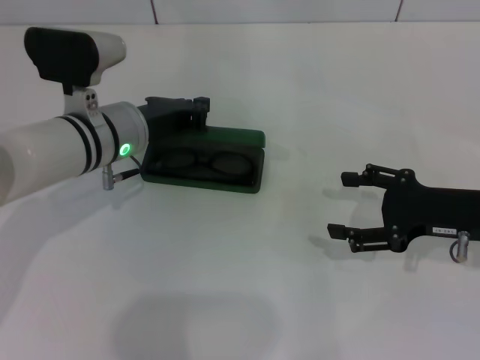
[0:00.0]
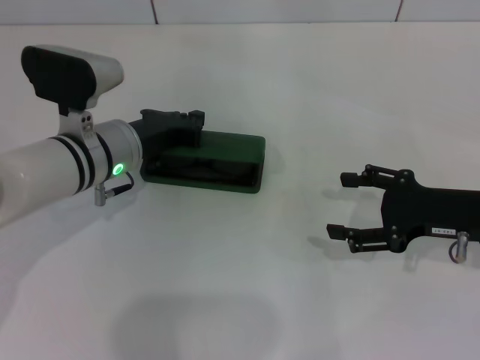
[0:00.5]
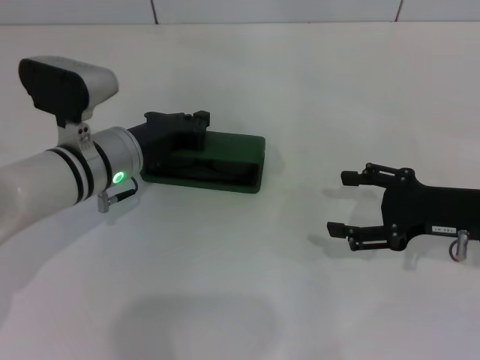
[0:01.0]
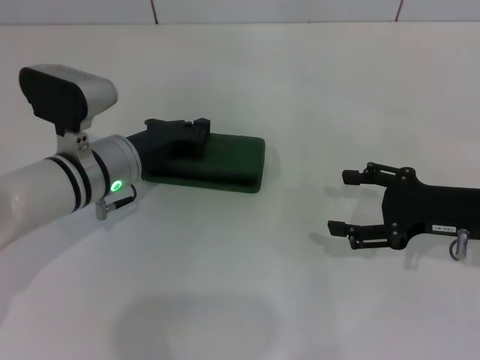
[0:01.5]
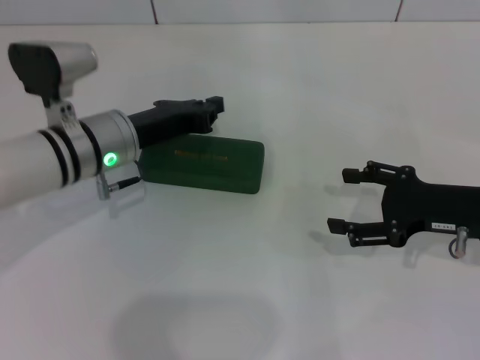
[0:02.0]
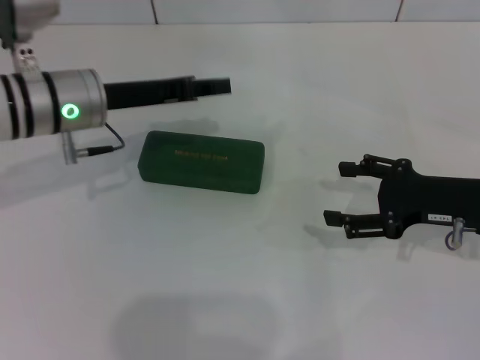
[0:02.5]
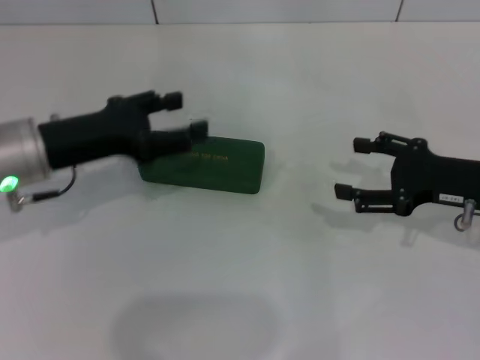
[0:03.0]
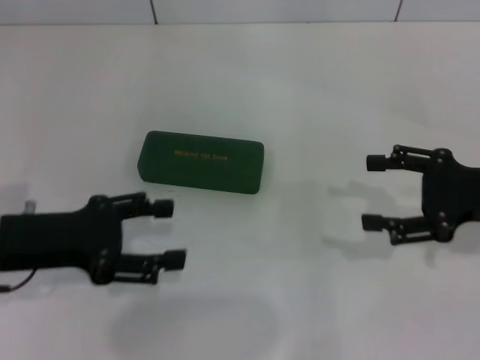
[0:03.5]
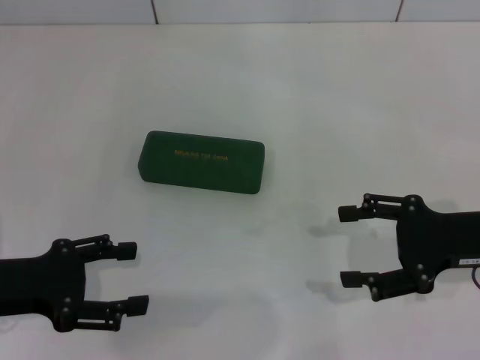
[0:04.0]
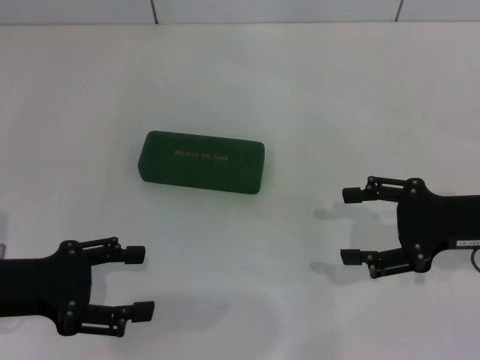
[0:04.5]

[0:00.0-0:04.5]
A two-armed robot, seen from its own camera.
0:00.0 to 0:02.0: There are only small adjustments of the grippers.
0:02.0 to 0:04.5: The left gripper shifts roughly 20 cm backward and to the left, and opens up.

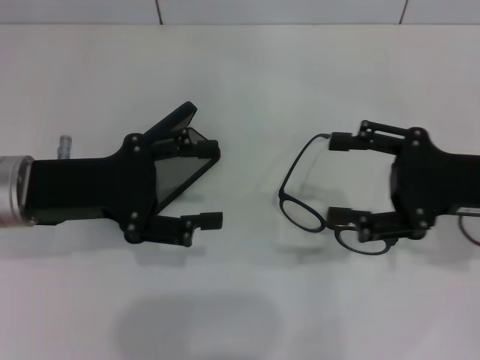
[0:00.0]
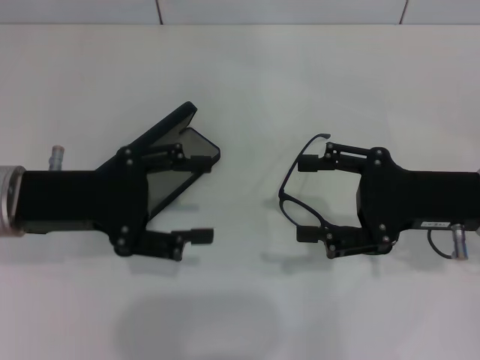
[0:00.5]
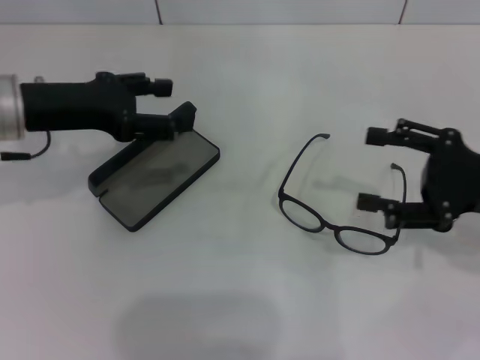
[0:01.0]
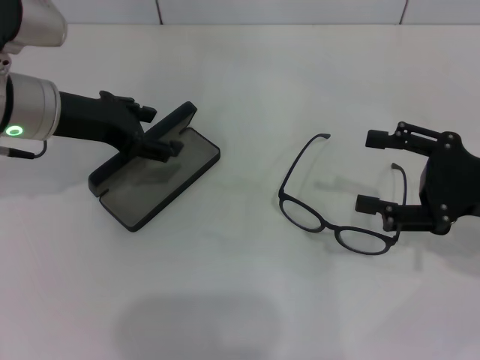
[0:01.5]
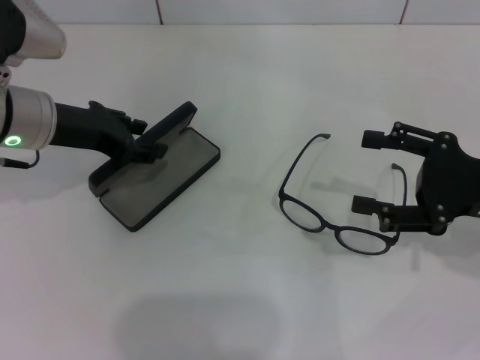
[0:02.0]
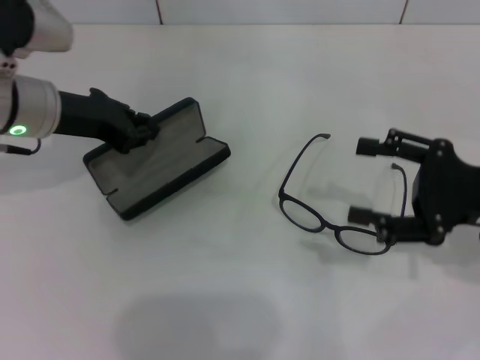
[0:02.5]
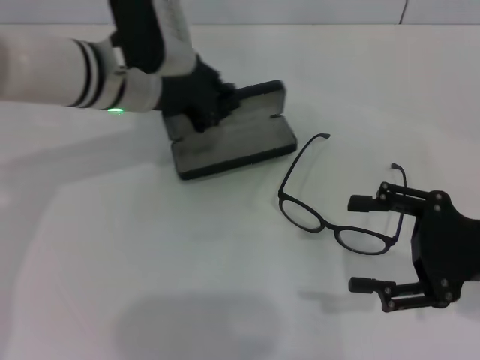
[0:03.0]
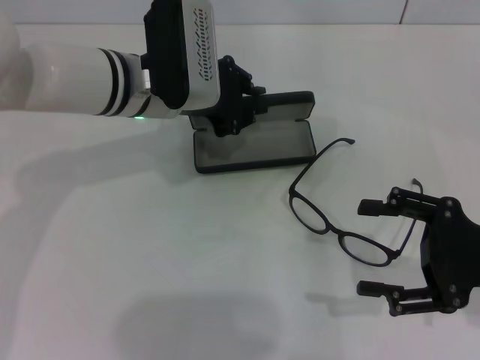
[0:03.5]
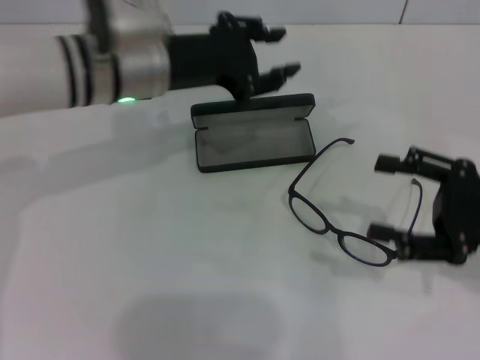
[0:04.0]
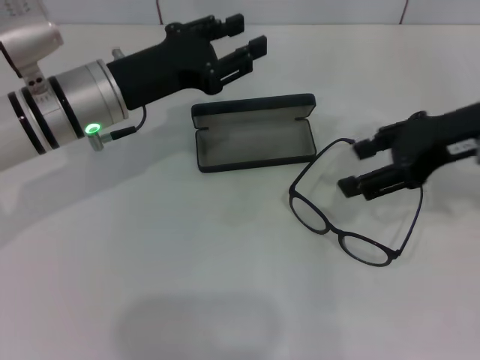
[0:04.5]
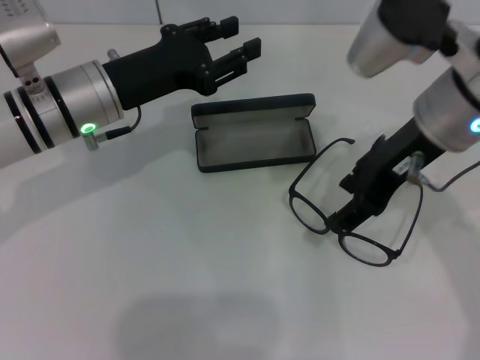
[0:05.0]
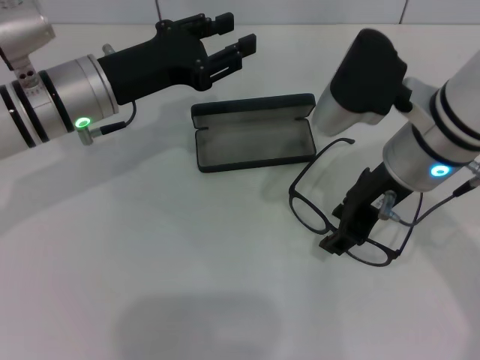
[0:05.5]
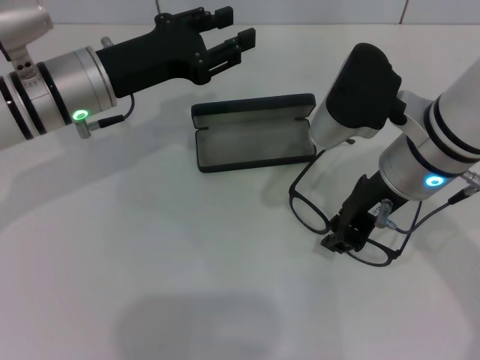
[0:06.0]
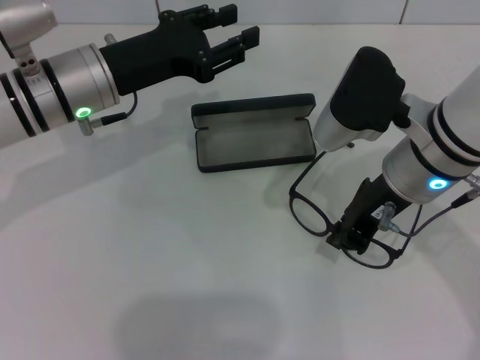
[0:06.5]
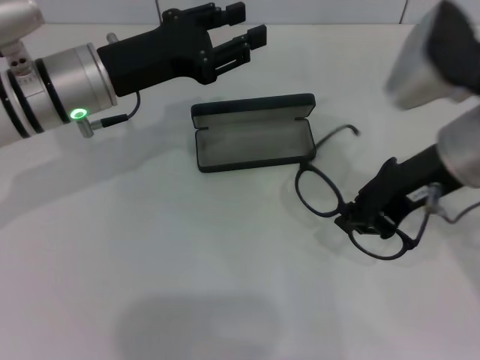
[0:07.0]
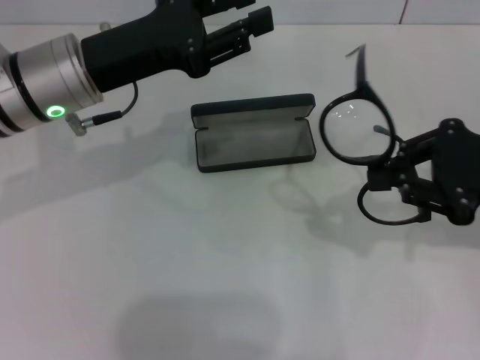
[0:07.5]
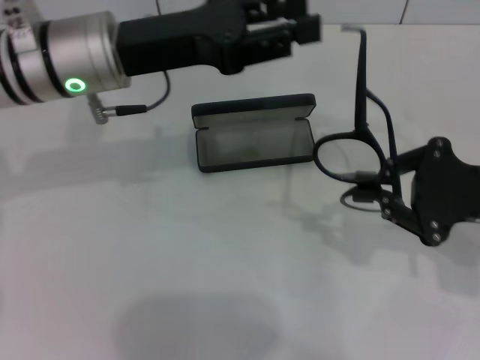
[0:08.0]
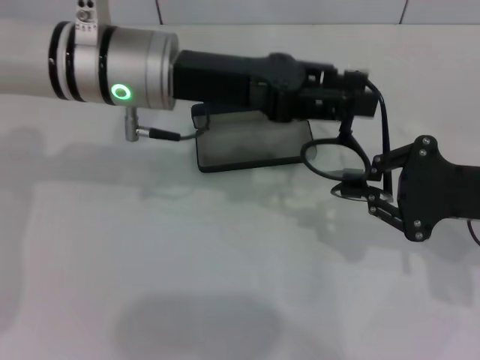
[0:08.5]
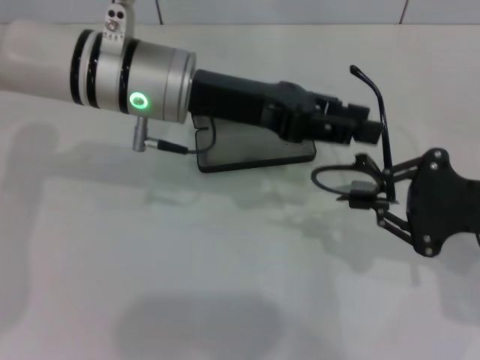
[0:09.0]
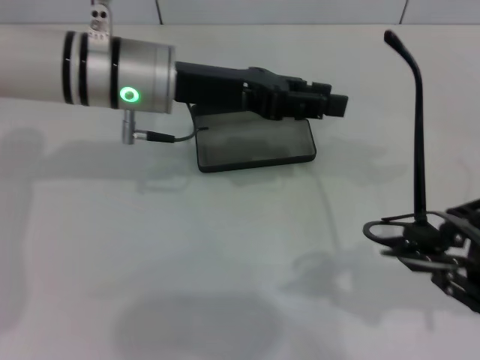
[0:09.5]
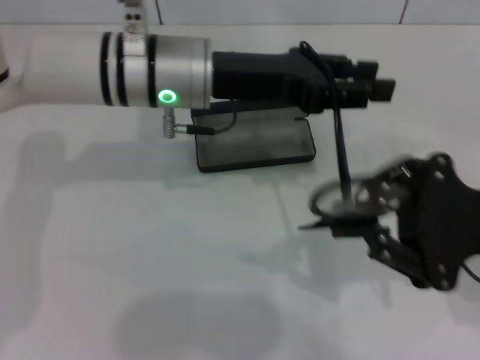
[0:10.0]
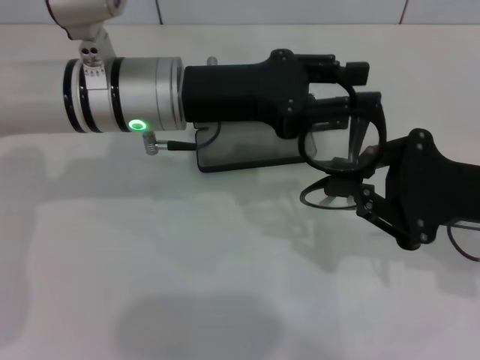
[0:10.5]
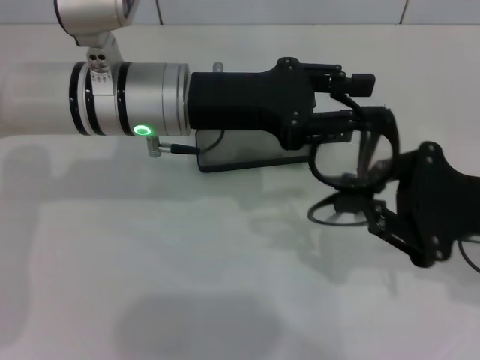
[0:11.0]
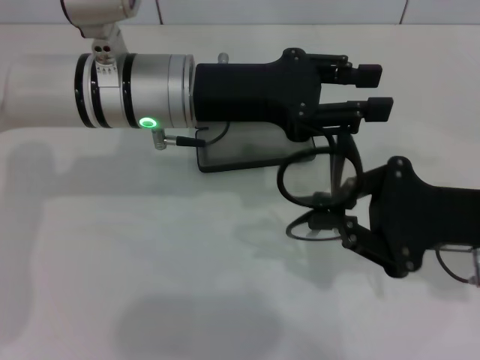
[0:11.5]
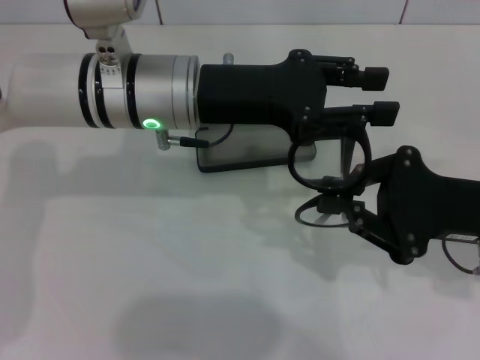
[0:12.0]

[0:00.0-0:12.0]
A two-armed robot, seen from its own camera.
Step, 0:00.0 to 0:02.0: Grab the glasses case with your left hand.
Step, 0:02.5 to 0:03.5: Place the glasses case in the center of the table with your left hand.
Step, 0:04.0 to 0:06.5: Grab the eyeglass frame with your right hand.
Step, 0:07.0 to 0:11.0: Fold the frame with your left hand.
0:00.0 to 0:02.0: The left gripper shifts approximately 10 cm forward.
0:02.0 to 0:04.0: The left gripper heads to the right, covering some 10 cm, and closes.
0:04.0 to 0:06.0: The right gripper moves to the left and forward, approximately 20 cm, and closes up. Meanwhile the left gripper goes about 5 cm to the left.
0:06.0 to 0:08.0: The right gripper is displaced to the right by approximately 15 cm, while the left gripper moves upward, roughly 5 cm.
0:08.0 to 0:10.0: The left gripper moves to the right, about 5 cm.

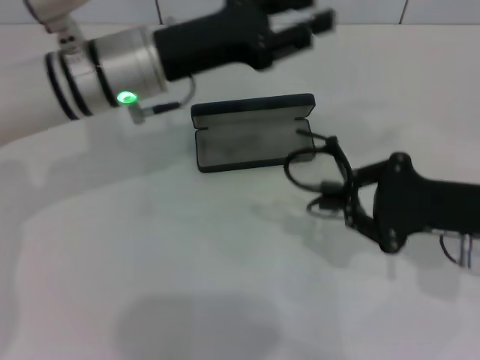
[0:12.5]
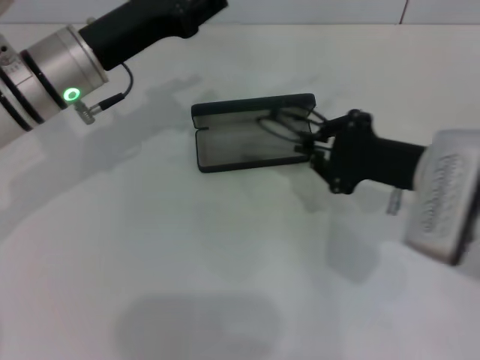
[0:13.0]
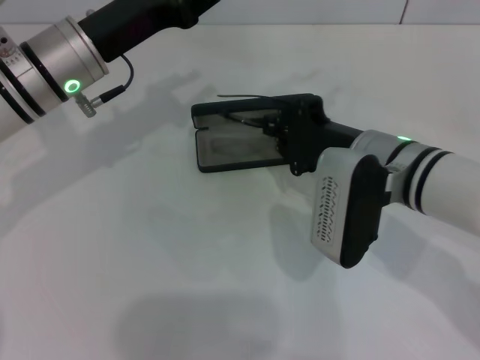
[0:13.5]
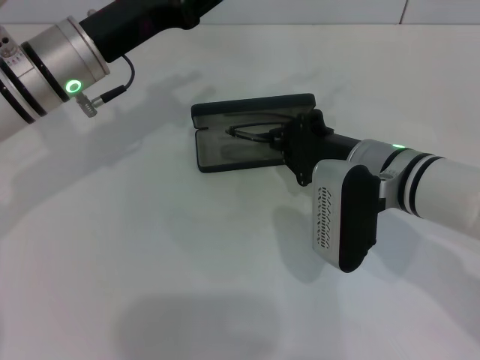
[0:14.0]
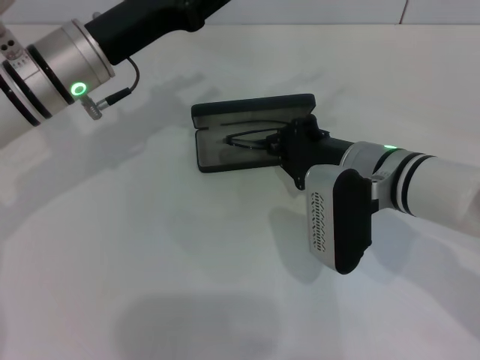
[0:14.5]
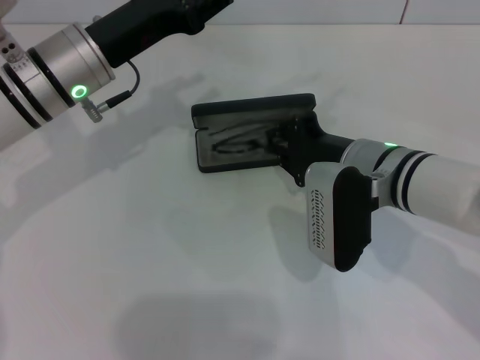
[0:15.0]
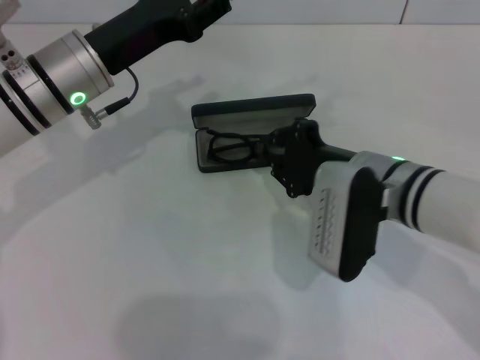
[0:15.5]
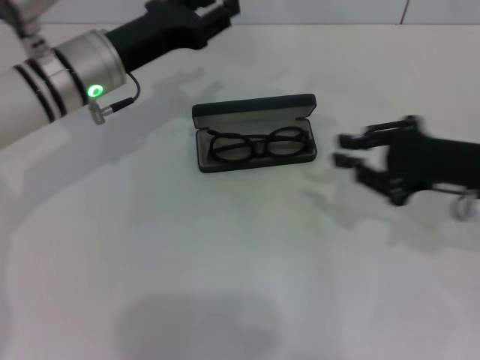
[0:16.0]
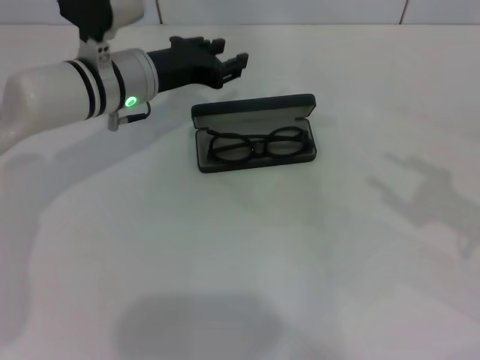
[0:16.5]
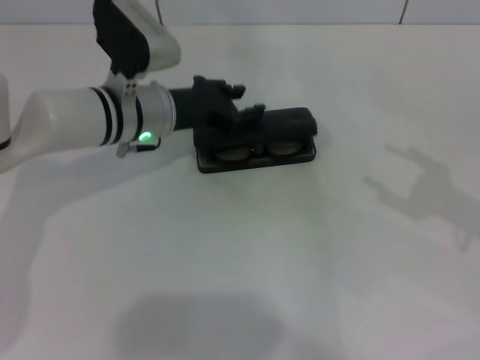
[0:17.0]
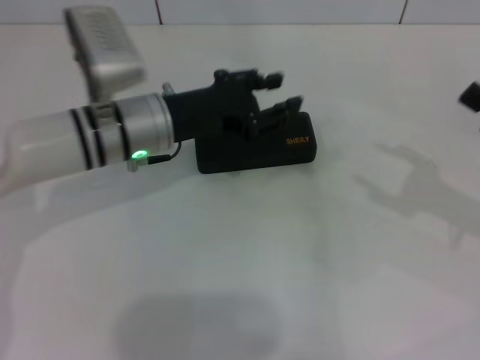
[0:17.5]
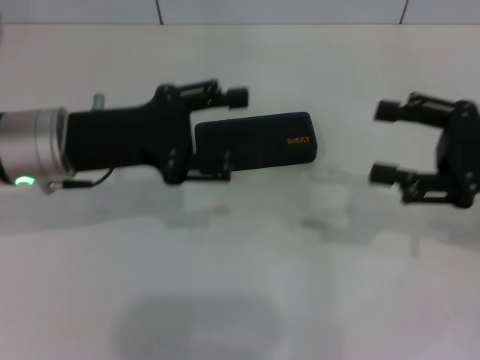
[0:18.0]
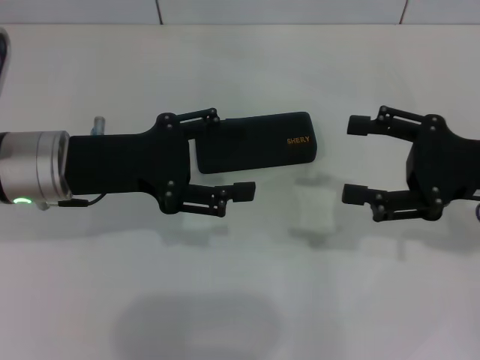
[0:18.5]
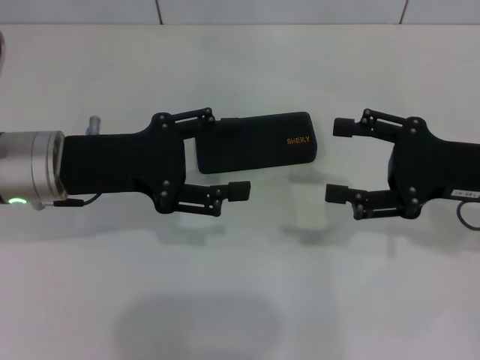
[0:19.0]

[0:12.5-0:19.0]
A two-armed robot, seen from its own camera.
Step, 0:12.5 to 0:15.5: Put the glasses into the case with your right hand.
Step, 0:16.0 to 0:17.0: Close the glasses case with your left hand.
0:12.5 to 0:14.5: The right gripper is displaced to the left by approximately 15 cm.
0:14.5 to 0:17.0: The right gripper is displaced to the right by some 20 cm, and opens. Meanwhile the left gripper goes some 5 cm downward.
0:17.0 to 0:19.0: The right gripper goes some 10 cm to the left; the left gripper heads backward and to the left, covering about 10 cm, and opens its fingers.
